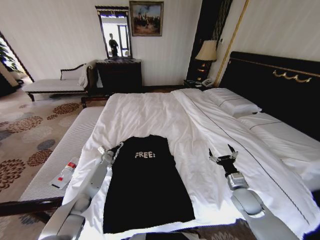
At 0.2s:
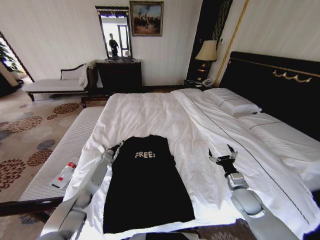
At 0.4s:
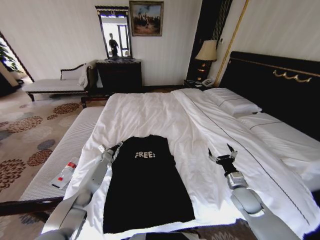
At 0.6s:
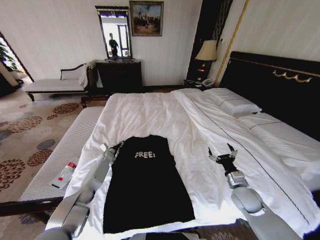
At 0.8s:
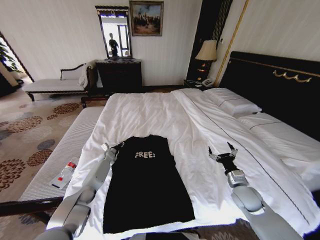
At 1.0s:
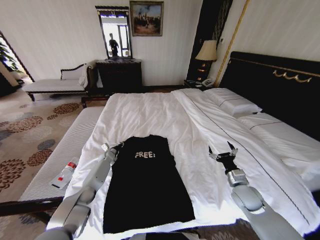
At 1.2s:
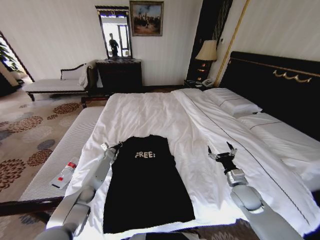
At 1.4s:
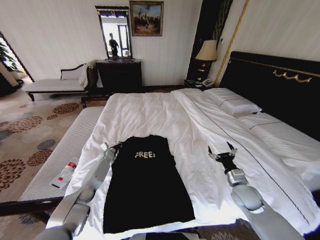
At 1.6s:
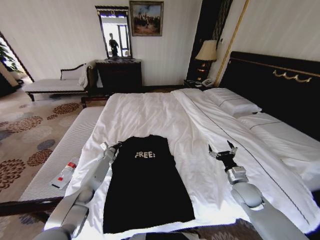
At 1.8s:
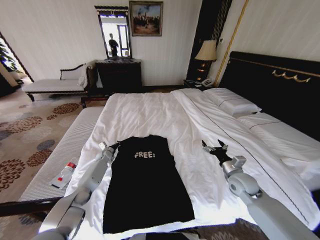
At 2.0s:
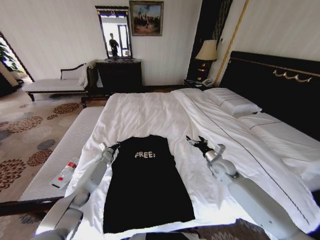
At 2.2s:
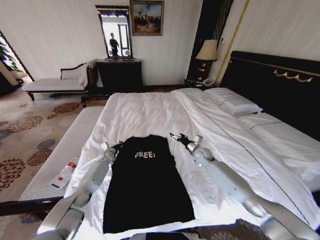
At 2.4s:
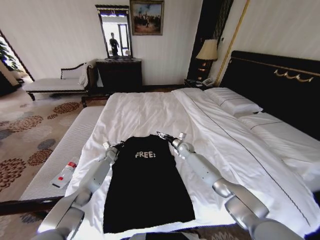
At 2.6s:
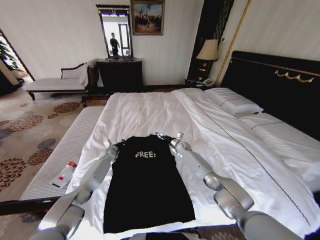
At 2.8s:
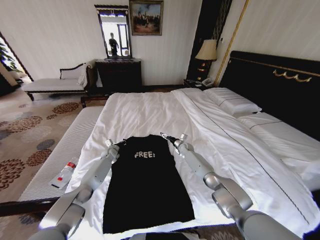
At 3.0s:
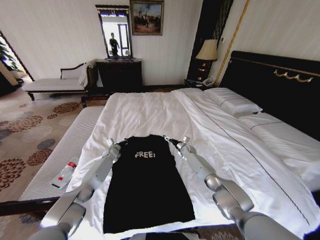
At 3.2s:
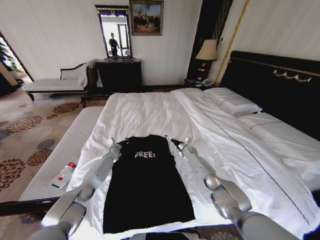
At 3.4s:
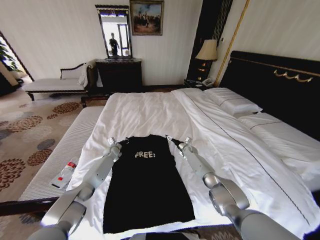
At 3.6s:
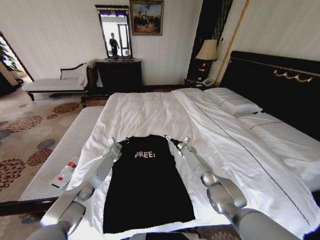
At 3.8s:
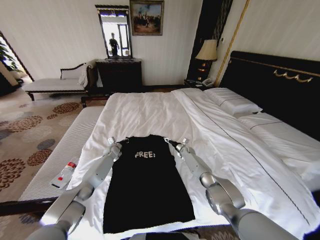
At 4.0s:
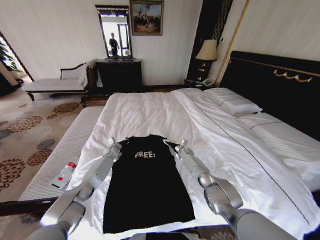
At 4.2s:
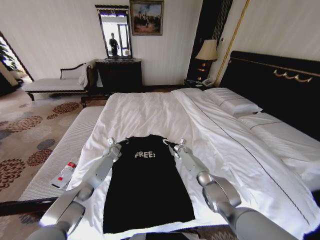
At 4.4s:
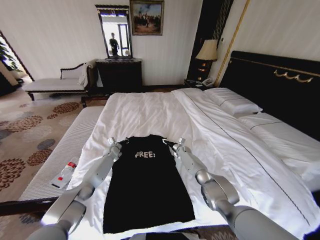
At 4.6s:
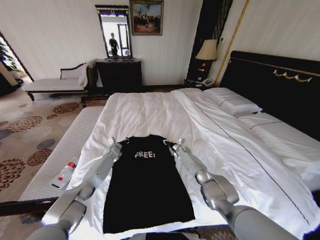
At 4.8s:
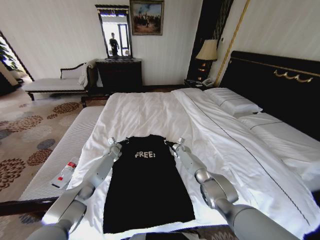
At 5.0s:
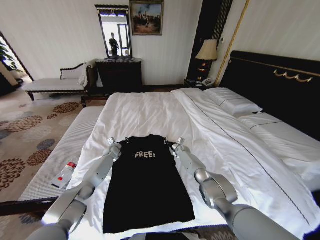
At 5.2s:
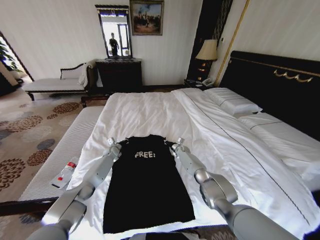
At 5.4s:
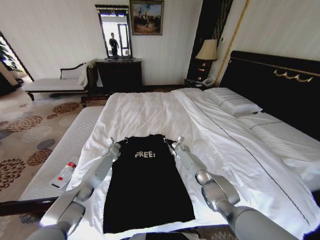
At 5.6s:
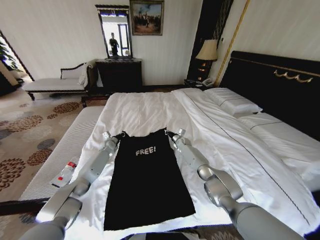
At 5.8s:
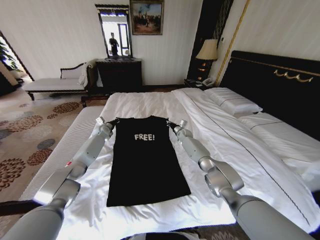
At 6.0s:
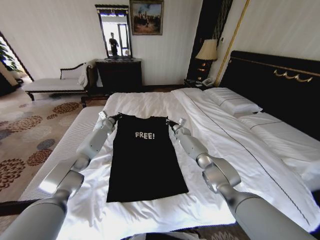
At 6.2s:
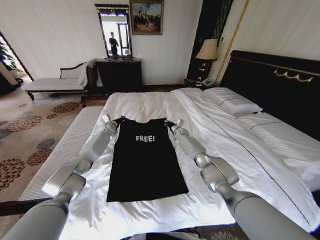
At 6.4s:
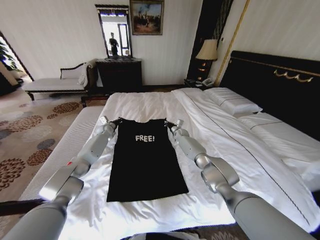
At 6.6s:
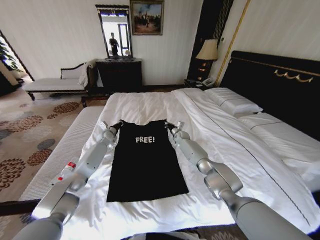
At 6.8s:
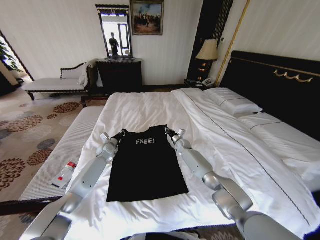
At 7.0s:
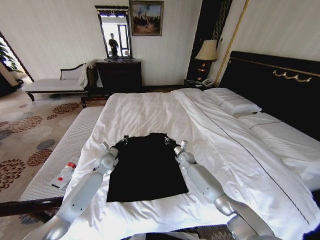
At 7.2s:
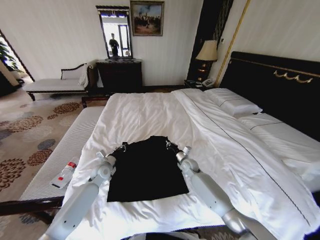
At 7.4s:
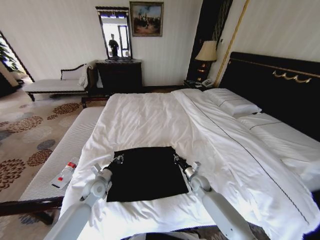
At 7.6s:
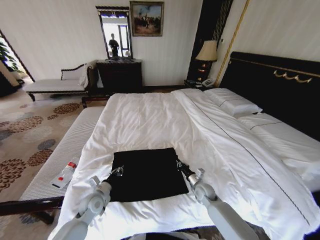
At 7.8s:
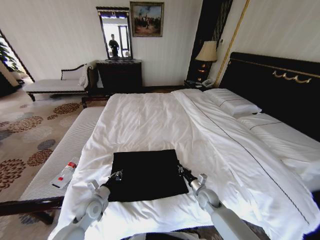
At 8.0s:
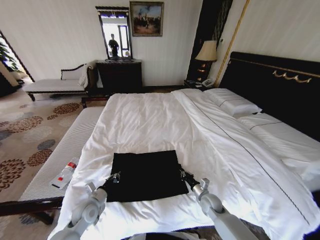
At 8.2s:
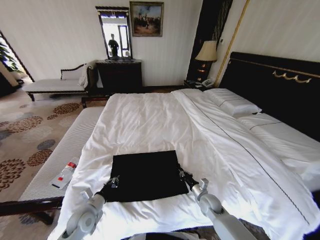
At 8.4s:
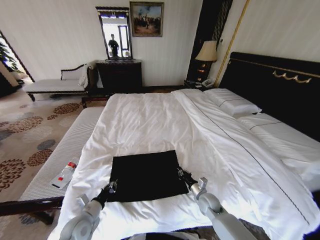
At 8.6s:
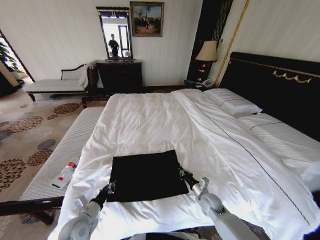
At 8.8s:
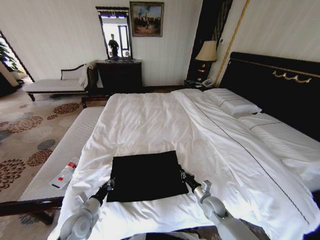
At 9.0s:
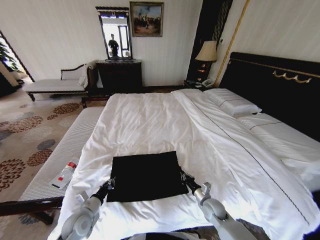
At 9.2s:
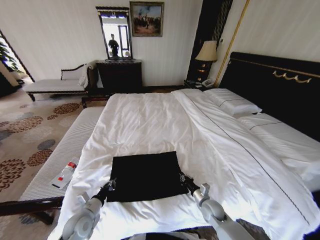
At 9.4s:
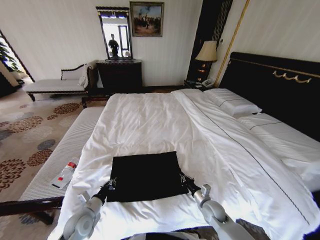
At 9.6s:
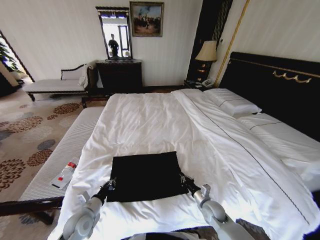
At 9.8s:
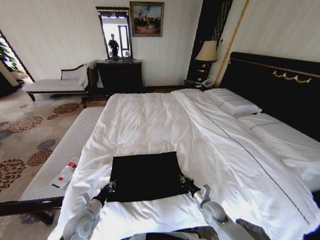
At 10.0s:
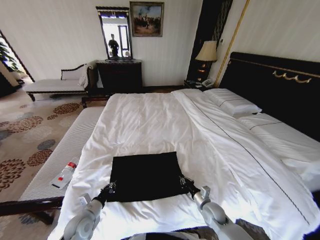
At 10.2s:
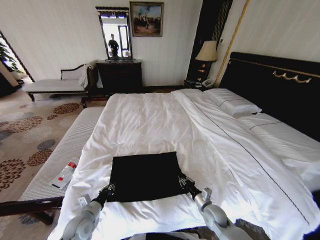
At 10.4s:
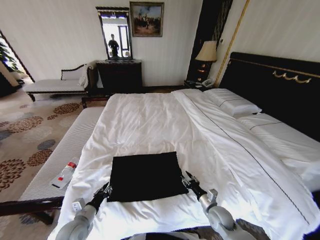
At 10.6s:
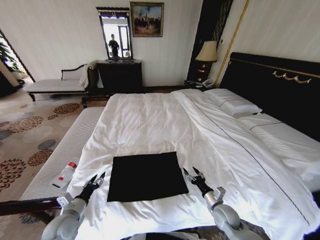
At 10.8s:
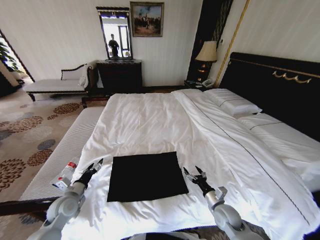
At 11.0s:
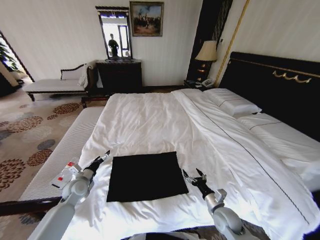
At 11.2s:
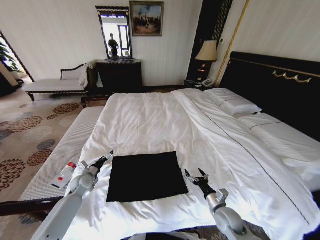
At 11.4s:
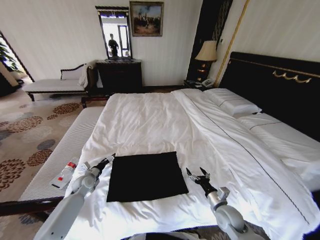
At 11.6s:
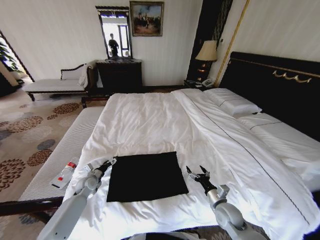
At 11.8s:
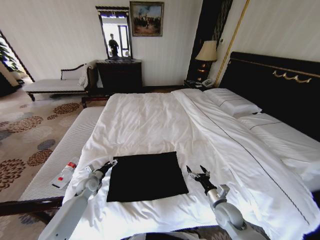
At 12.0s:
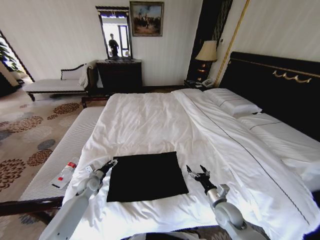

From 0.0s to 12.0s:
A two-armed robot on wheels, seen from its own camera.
Task of the whole recording: Fold the clothes on the bed.
From 0.0s to 1.6s: The left gripper closes.
From 1.6s to 3.0s: The right gripper heads forward and to the left, covering some 35 cm.
From 3.0s to 4.4s: The right gripper closes.
From 4.4s to 6.0s: Both grippers travel together upward and forward, roughly 15 cm. The right gripper closes its fingers.
From 6.0s to 7.6s: The grippers both shift backward by some 35 cm.
From 7.6s to 9.0s: The grippers both shift backward by approximately 10 cm.
From 9.0s to 10.4s: The right gripper opens.
From 10.4s to 12.0s: The left gripper moves forward, some 20 cm, and opens up; the right gripper goes approximately 5 cm upward, and opens up.

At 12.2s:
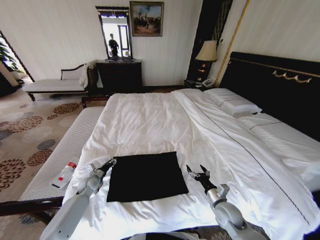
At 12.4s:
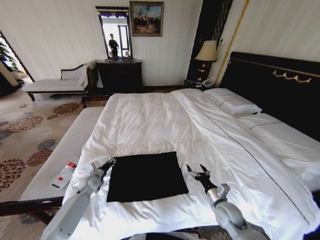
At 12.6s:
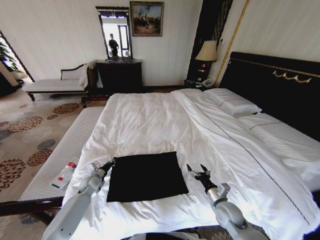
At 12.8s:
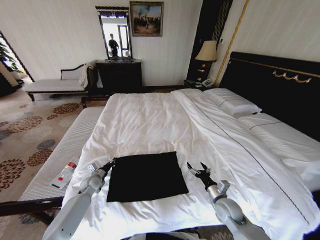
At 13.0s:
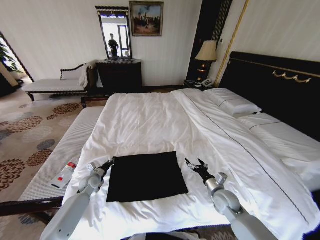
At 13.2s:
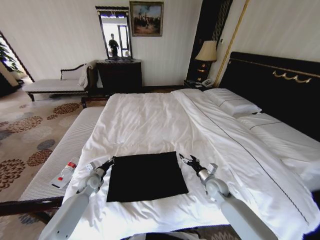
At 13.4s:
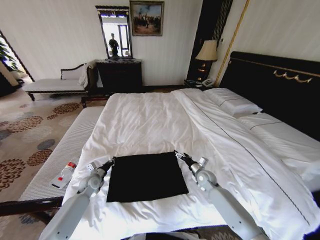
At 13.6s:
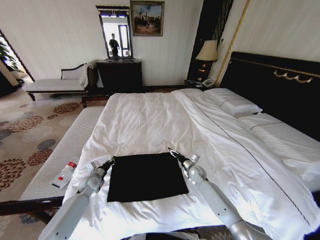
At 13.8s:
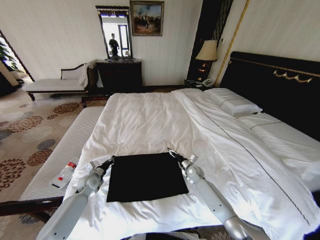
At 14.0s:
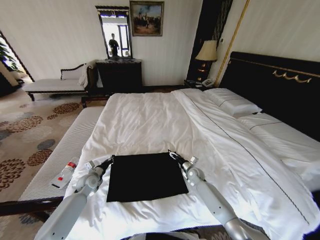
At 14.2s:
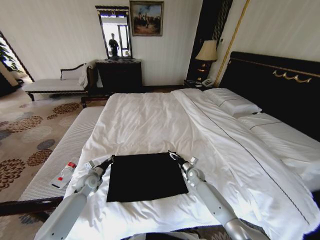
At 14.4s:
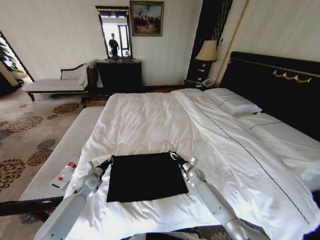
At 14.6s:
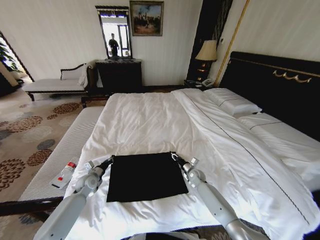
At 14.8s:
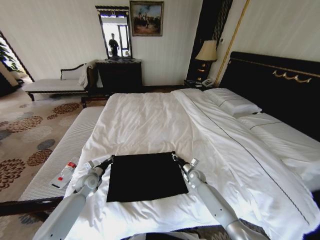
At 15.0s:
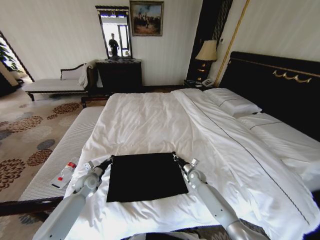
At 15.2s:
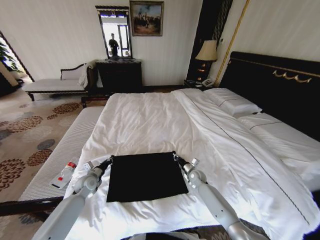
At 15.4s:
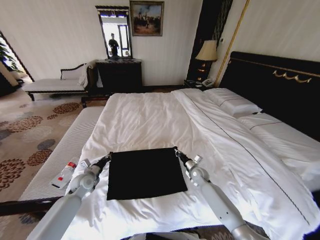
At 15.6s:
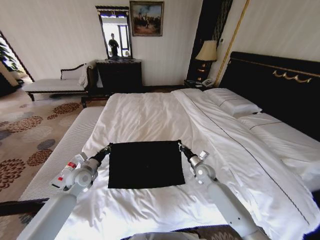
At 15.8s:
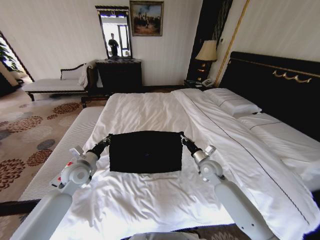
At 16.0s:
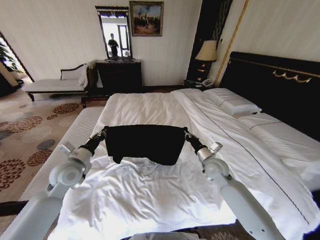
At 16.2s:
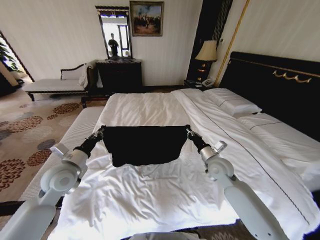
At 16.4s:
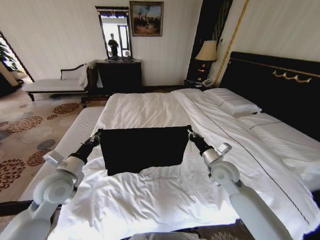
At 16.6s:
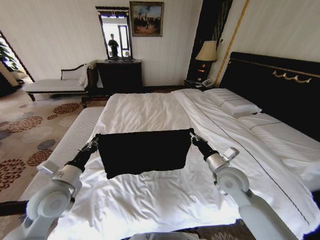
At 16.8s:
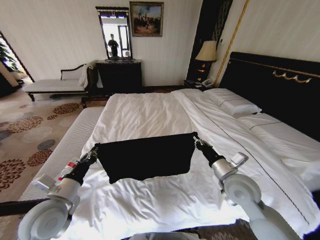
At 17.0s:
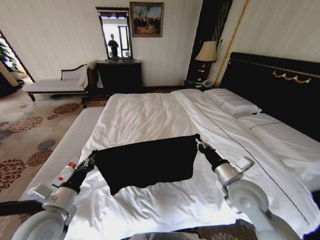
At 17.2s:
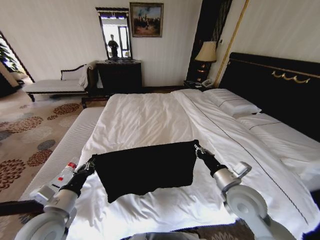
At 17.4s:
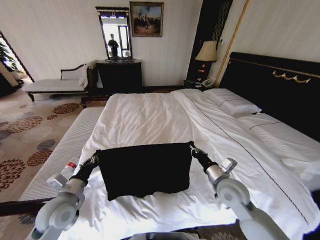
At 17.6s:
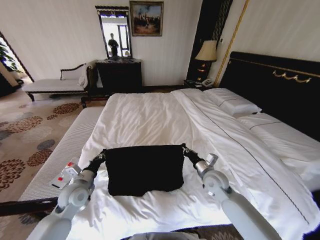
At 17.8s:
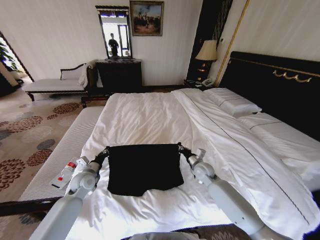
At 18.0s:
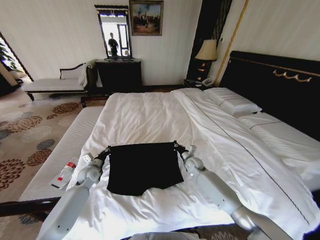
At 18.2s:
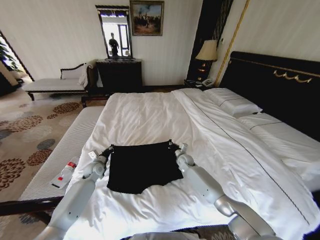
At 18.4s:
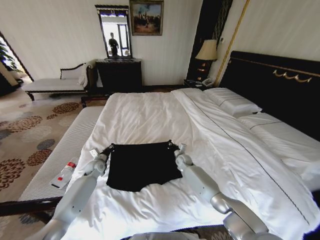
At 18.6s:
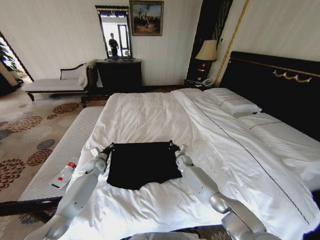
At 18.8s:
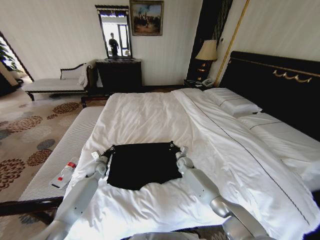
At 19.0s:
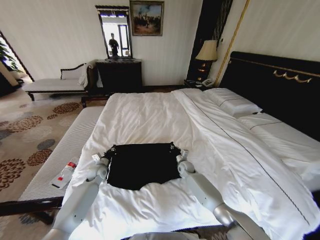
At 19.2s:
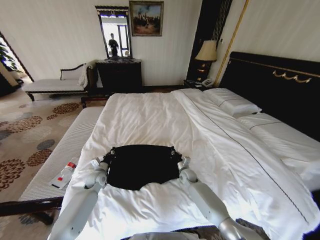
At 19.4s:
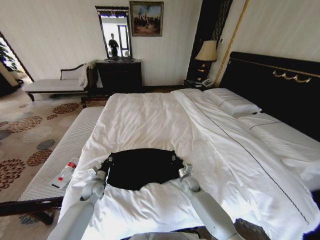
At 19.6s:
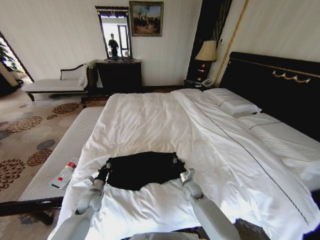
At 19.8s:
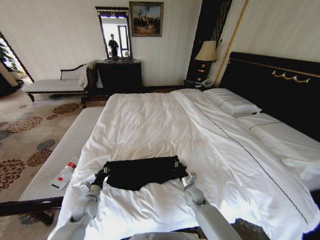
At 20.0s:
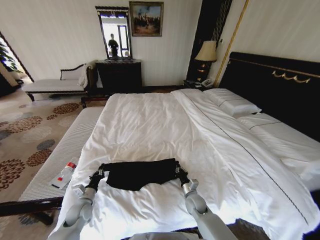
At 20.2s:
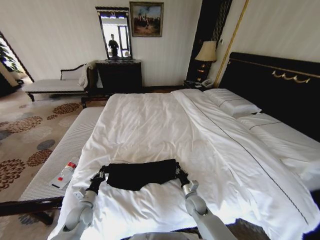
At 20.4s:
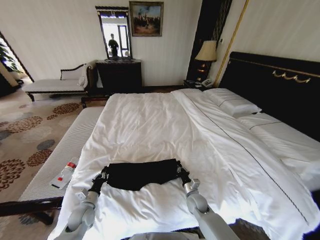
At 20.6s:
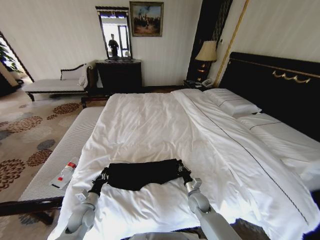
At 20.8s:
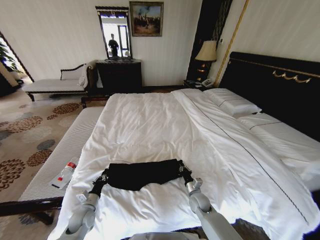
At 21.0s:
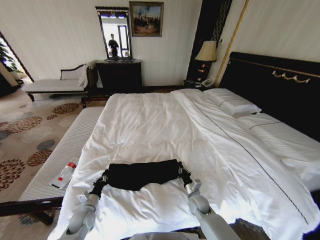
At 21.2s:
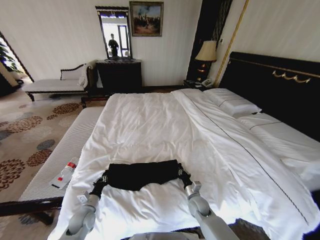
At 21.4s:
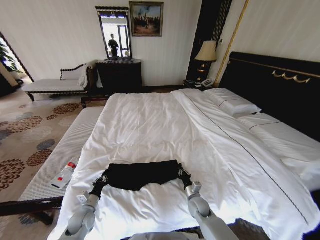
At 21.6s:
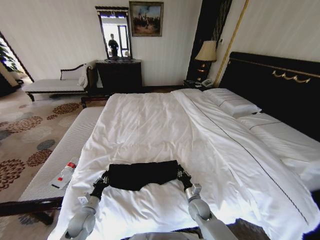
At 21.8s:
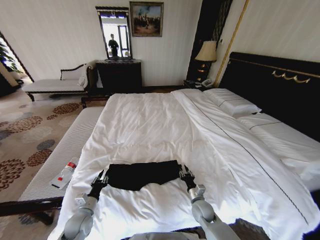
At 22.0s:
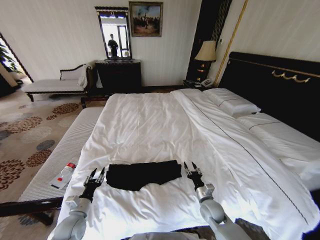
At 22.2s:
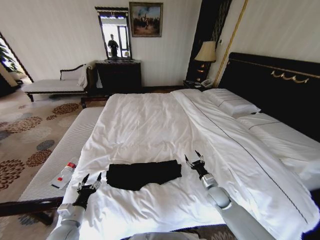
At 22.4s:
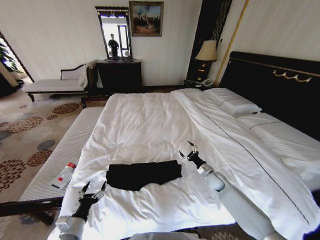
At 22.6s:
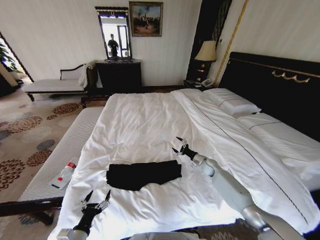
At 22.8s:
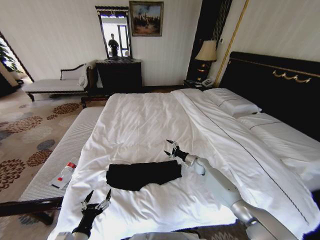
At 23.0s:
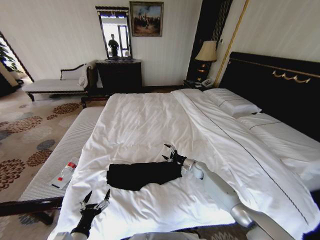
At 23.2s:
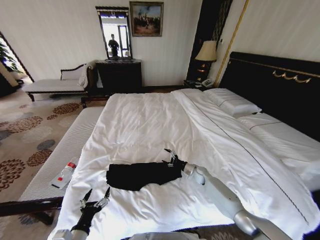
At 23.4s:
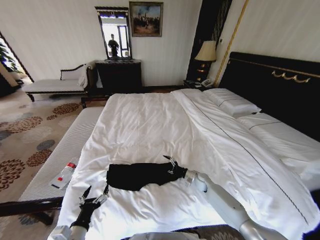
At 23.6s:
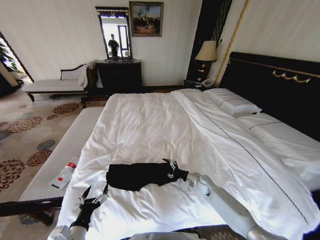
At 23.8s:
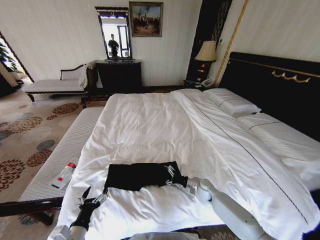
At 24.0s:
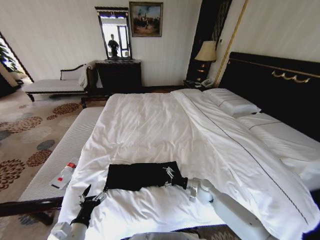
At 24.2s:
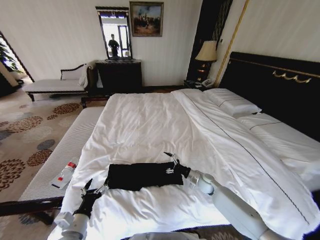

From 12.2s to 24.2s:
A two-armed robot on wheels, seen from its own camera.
Task of the whole recording: Fold the clothes on the bed.
From 12.2s to 13.8s: The left gripper closes; the right gripper moves forward, approximately 20 cm.
From 13.8s to 15.2s: The right gripper closes up.
From 15.2s to 16.6s: Both grippers travel together upward and backward, roughly 25 cm.
From 16.6s to 18.2s: Both grippers travel together forward and downward, about 25 cm.
From 18.2s to 19.8s: The two grippers go about 20 cm backward.
From 19.8s to 21.2s: The grippers stay close to where they were, moving slightly.
From 21.2s to 22.6s: The right gripper goes roughly 25 cm forward and to the right, and opens up, while the left gripper shifts about 15 cm backward and upward, and opens up.
From 22.6s to 24.2s: The left gripper changes place by approximately 5 cm; the right gripper goes roughly 10 cm backward and to the left.
